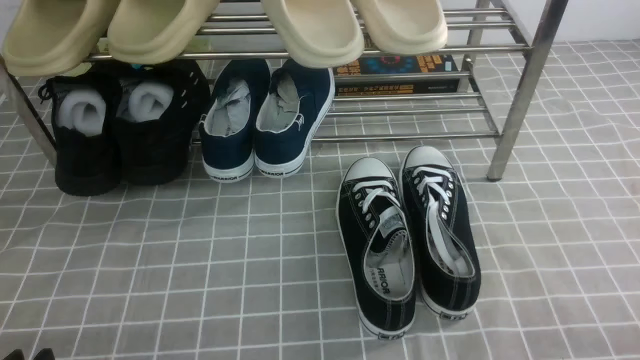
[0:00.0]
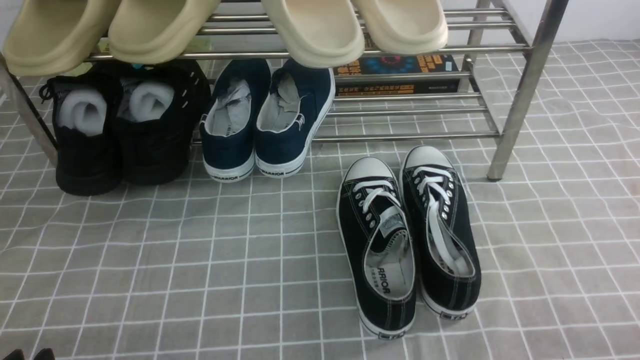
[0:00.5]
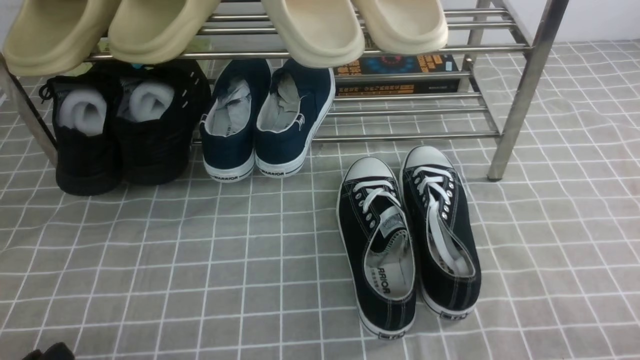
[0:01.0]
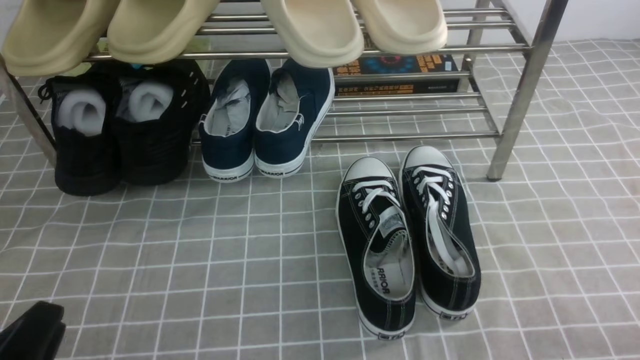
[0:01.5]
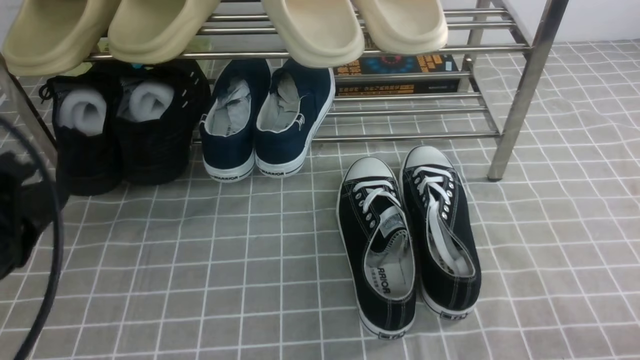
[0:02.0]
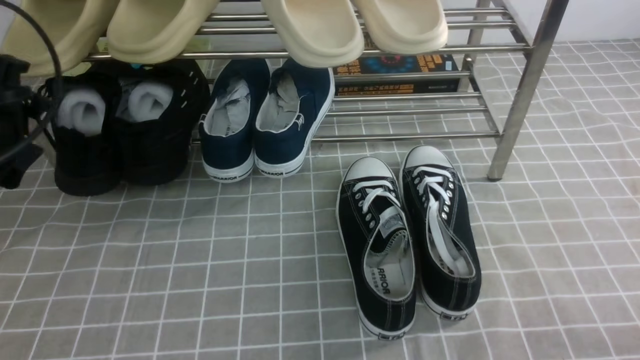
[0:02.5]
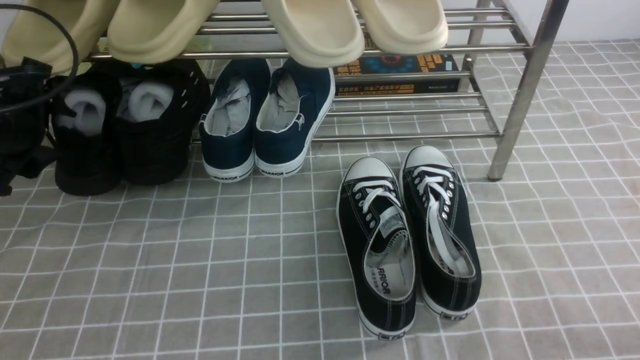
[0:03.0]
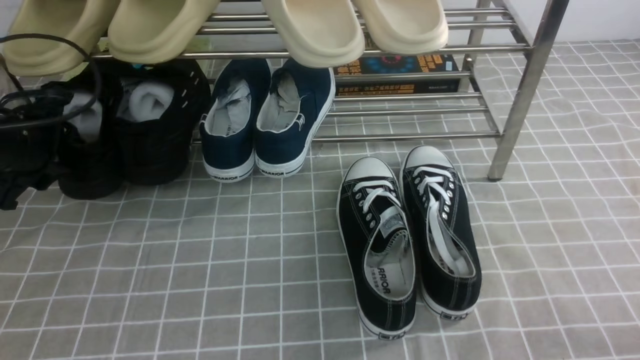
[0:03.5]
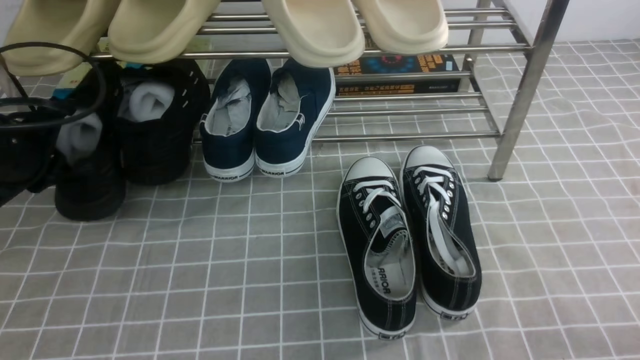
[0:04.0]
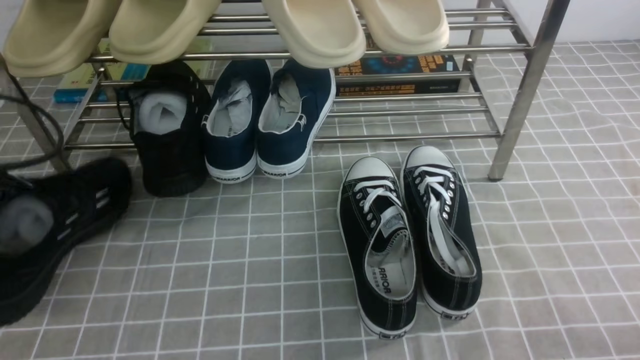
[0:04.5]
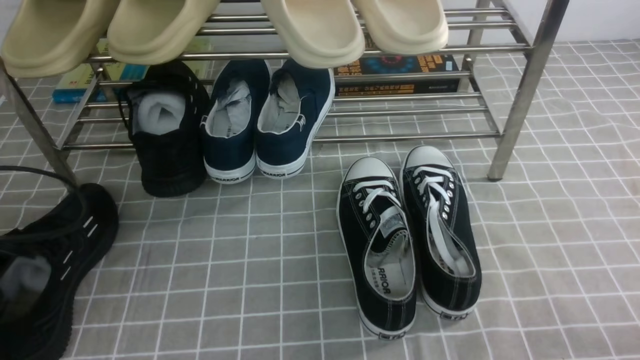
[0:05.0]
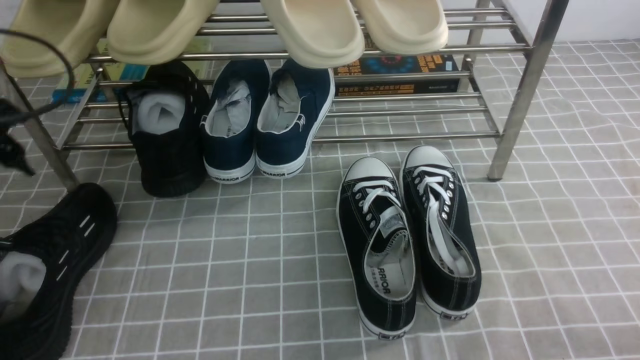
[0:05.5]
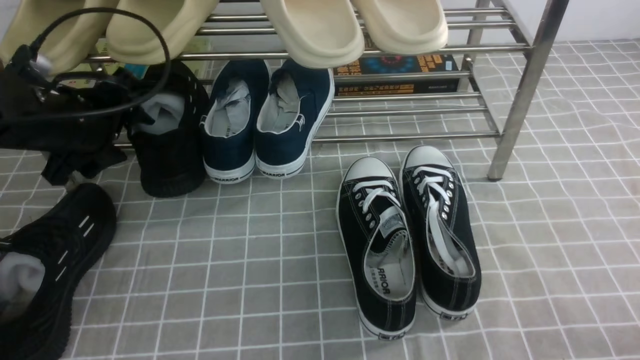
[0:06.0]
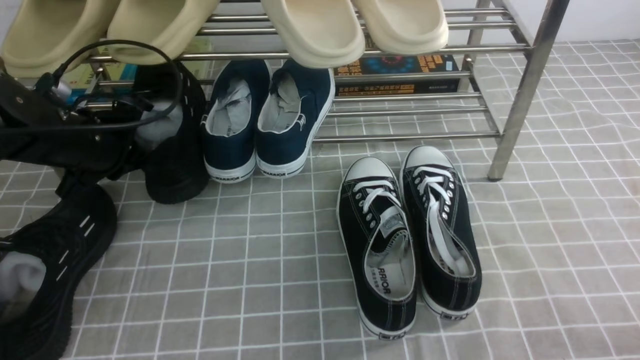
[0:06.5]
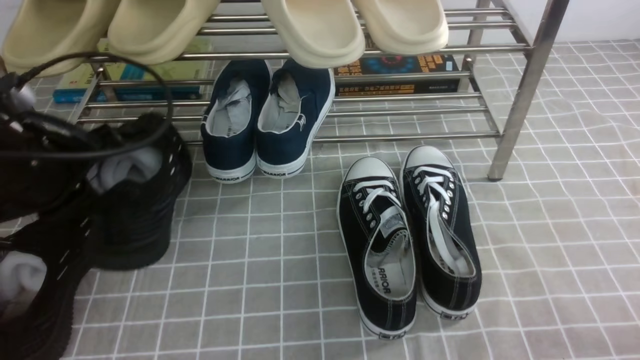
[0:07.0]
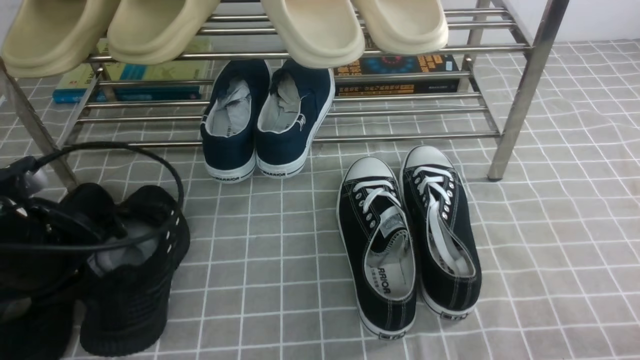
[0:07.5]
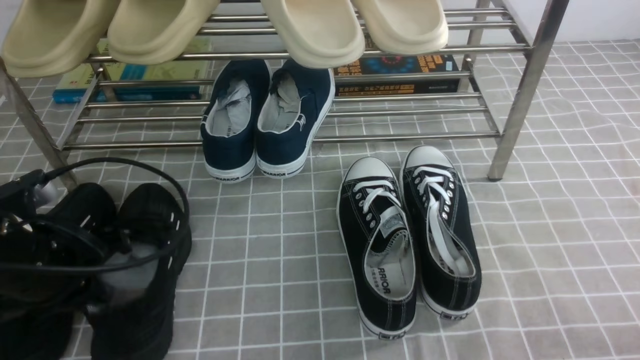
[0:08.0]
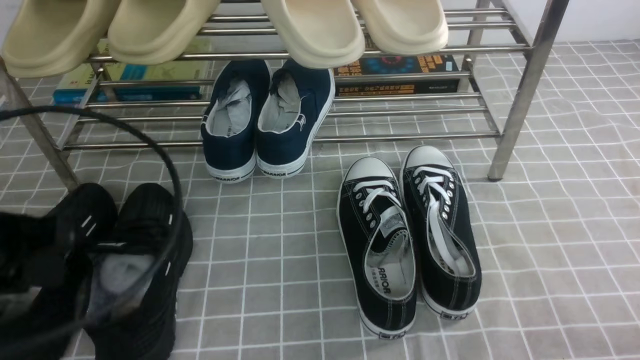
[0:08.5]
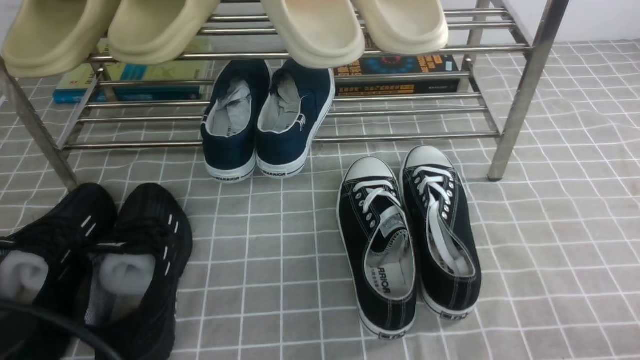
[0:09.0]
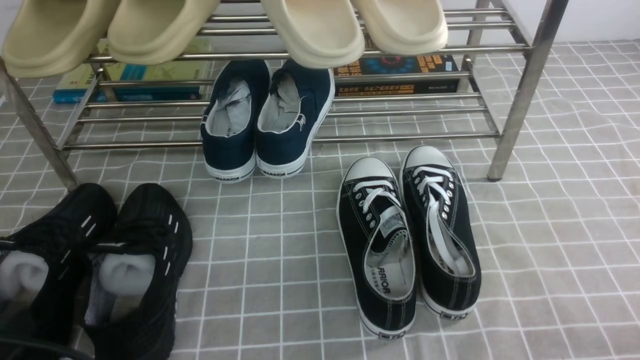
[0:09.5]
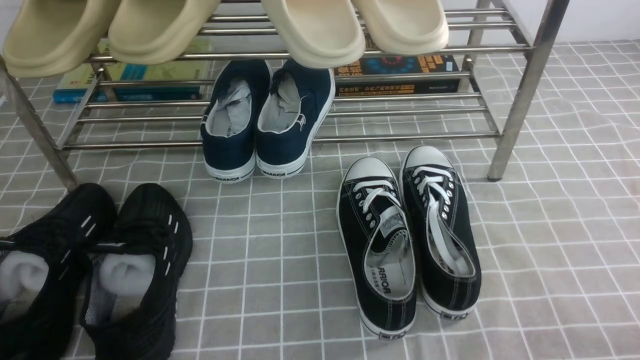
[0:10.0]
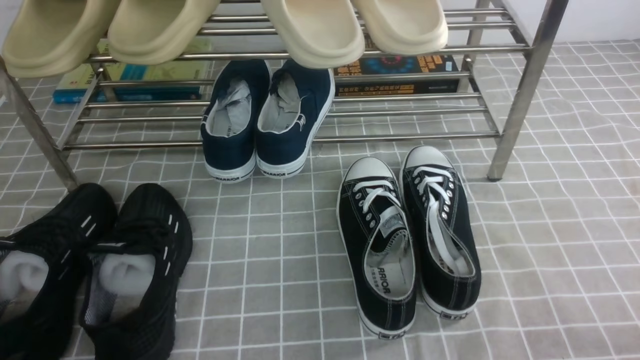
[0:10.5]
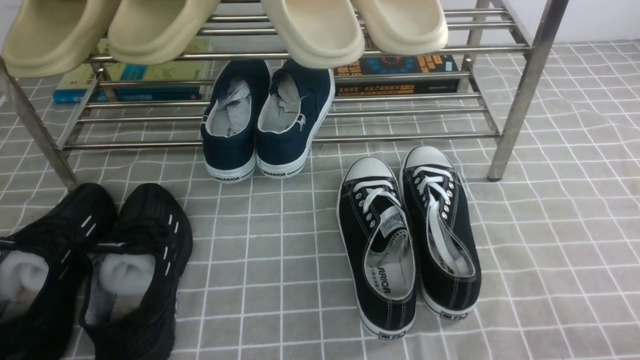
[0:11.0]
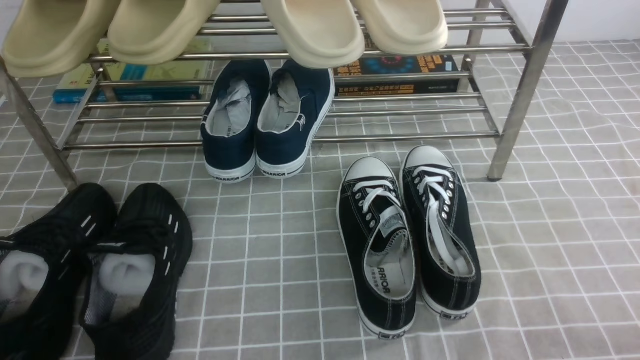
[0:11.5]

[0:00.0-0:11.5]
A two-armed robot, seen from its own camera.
Step, 0:00.0 to 0:03.5: use the left arm to clamp a shoe on the left side of the shoe rack.
Step, 0:04.0 to 0:05.0: Use your left arm to remove the clamped shoe from the shoe rack and put it down.
Step, 0:05.5 to 0:06.5: use the left arm to clamp a shoe on the left side of the shoe rack.
Step, 0:07.0 to 0:08.0: Use your left arm to remove the clamped shoe from the shoe rack and put it down.
0:02.0 to 0:04.0: The left gripper goes some 25 cm forward, and opens, then closes again.
0:04.0 to 0:06.0: The left gripper is displaced to the right by about 5 cm, reaches approximately 10 cm backward, then returns, and opens.
0:06.0 to 0:07.5: The left gripper moves backward, about 10 cm, and closes.
0:07.5 to 0:09.5: The left gripper moves backward, about 20 cm, and opens, then closes again.

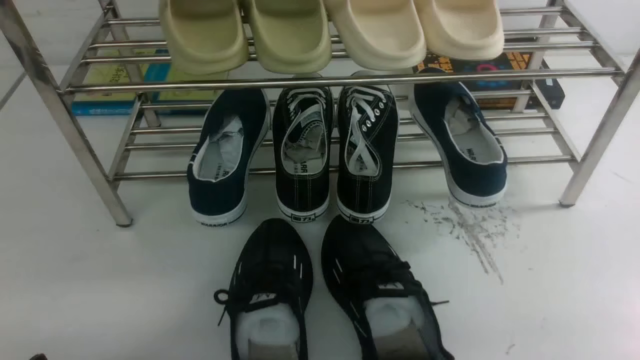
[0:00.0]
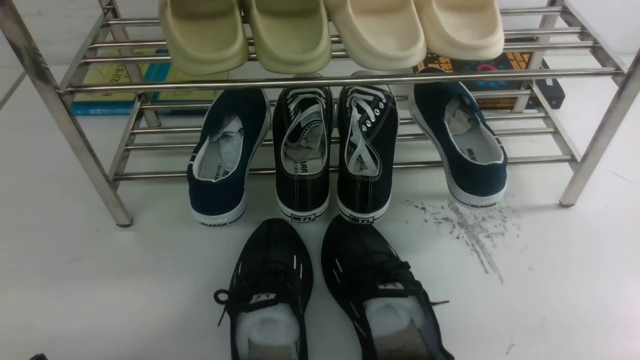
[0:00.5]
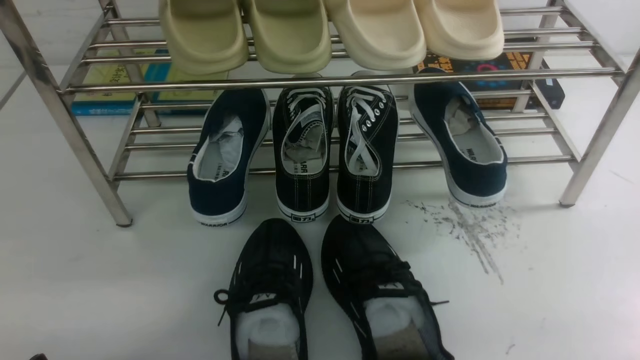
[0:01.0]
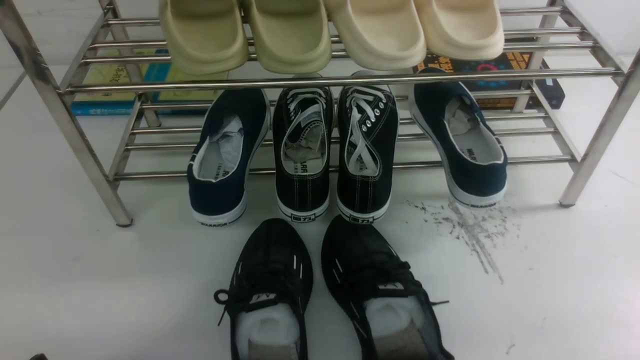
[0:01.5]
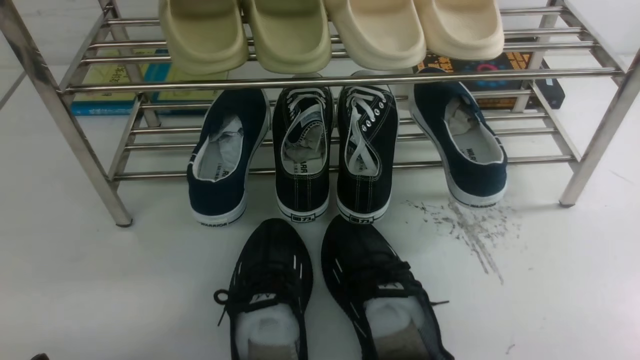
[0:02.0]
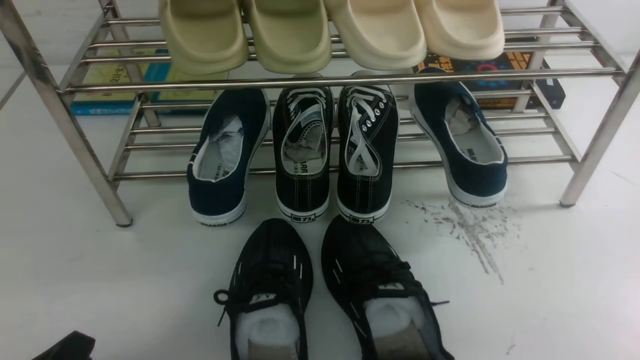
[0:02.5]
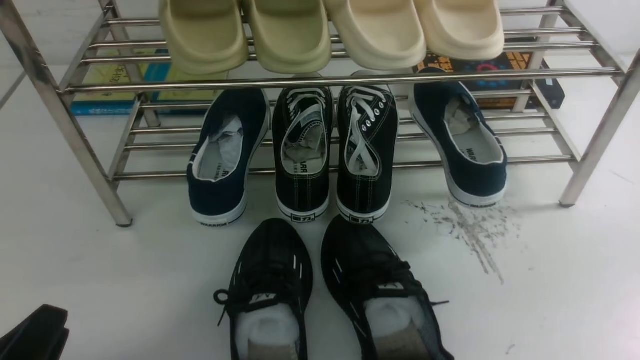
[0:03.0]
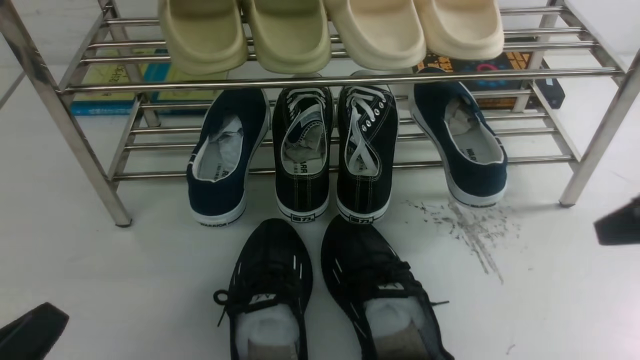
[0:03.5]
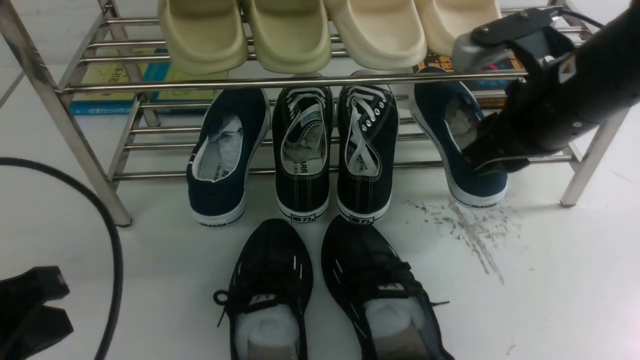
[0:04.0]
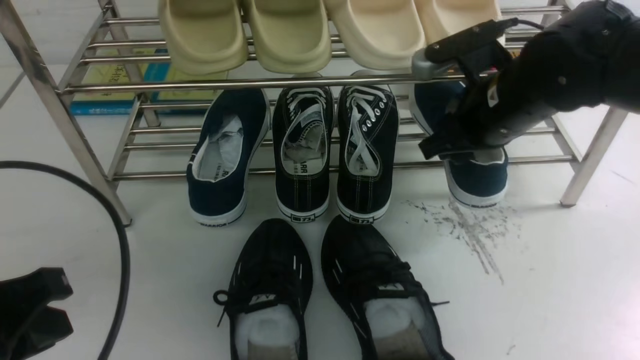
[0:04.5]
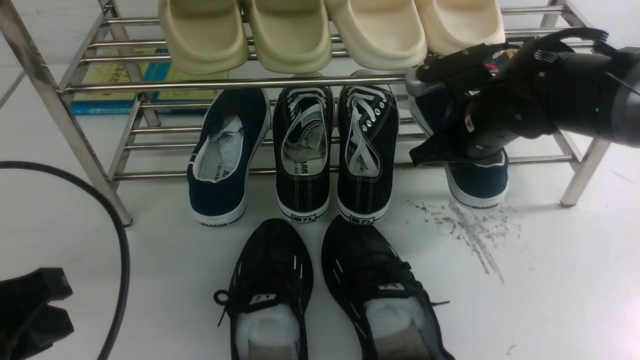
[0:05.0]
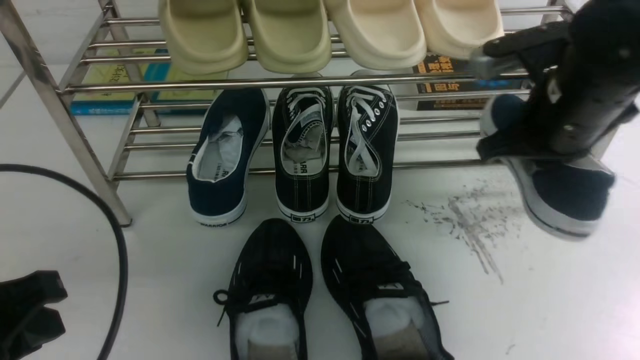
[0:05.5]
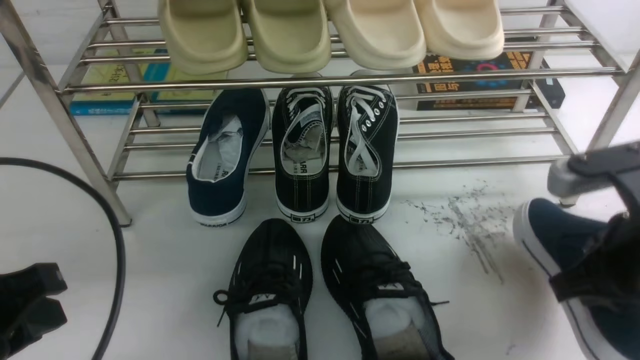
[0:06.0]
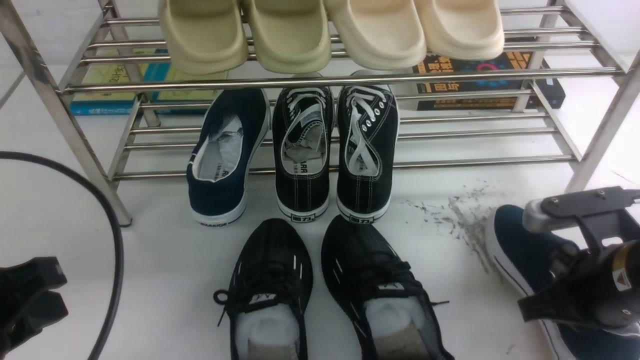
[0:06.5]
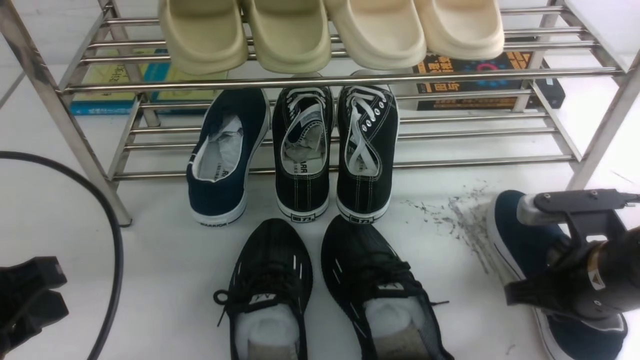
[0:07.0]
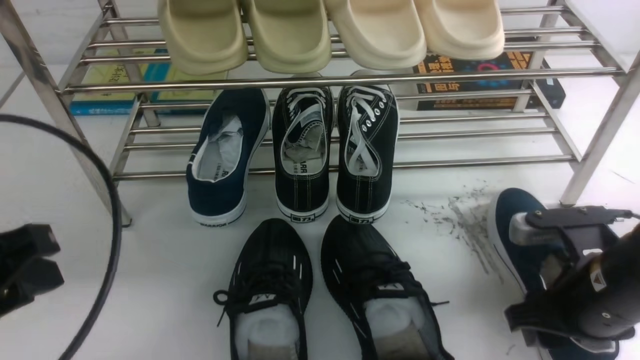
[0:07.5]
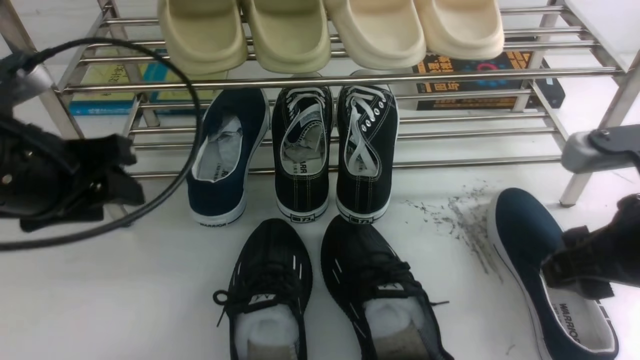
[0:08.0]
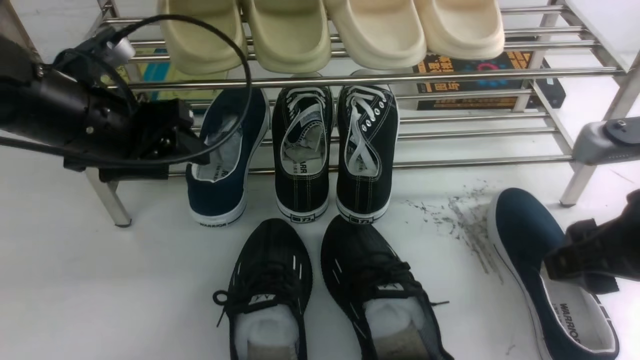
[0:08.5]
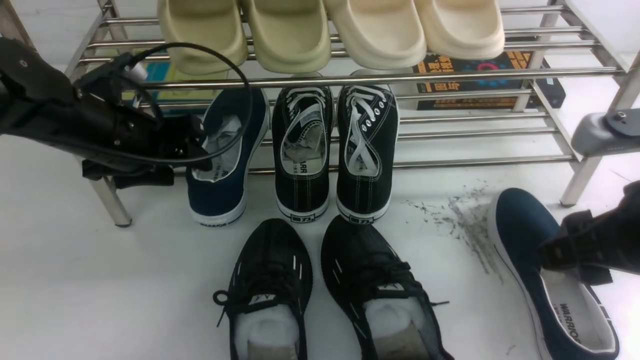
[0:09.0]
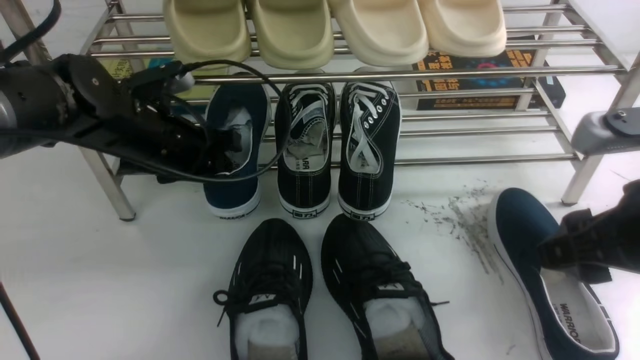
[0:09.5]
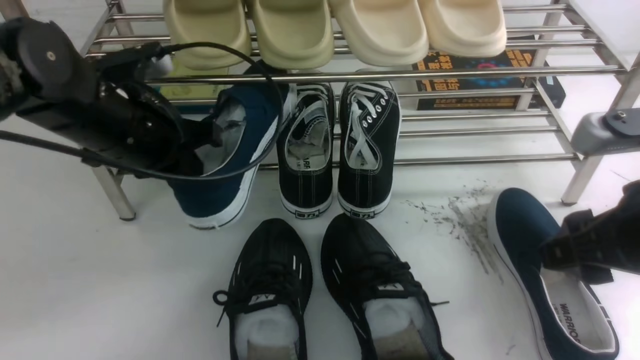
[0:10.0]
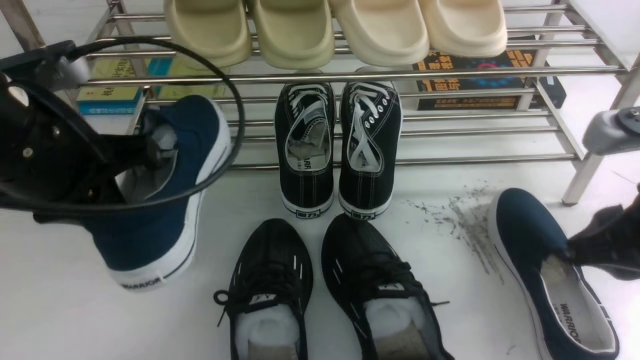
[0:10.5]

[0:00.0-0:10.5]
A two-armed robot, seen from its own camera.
Step, 0:00.0 to 0:05.5: use the right arm to clamp a shoe on the right side of the shoe rack.
Step, 0:06.0 to 0:07.5: use the right arm to take out the clamped shoe from the shoe rack and put it down.
Step, 0:08.0 to 0:10.0: use the left arm to clamp a shoe on the left side of the shoe rack.
0:02.0 to 0:04.0: The right gripper shifts about 30 cm forward, upward and to the left, and closes and opens again; the left gripper shifts roughly 15 cm upward, and closes up.
0:04.0 to 0:06.5: The right gripper is displaced downward and backward by about 15 cm, and closes its fingers.
0:06.5 to 0:08.5: The right gripper moves upward, roughly 10 cm, and opens its fingers. The left gripper heads forward, covering roughly 20 cm, and opens its fingers.
0:08.5 to 0:10.5: The left gripper is displaced backward and upward by roughly 10 cm, and closes up; the right gripper closes up.
